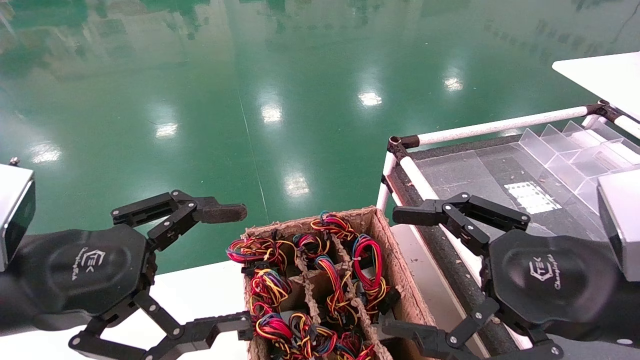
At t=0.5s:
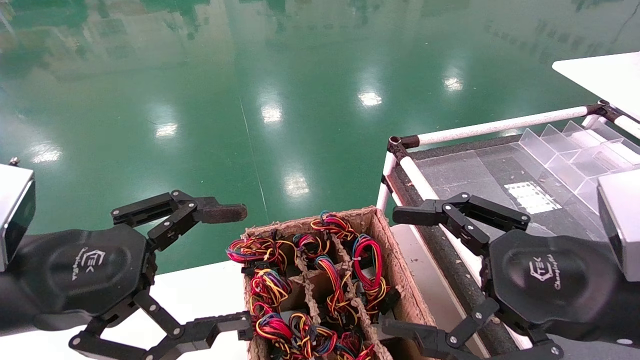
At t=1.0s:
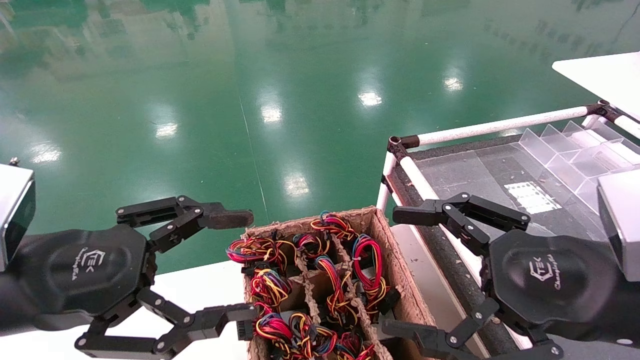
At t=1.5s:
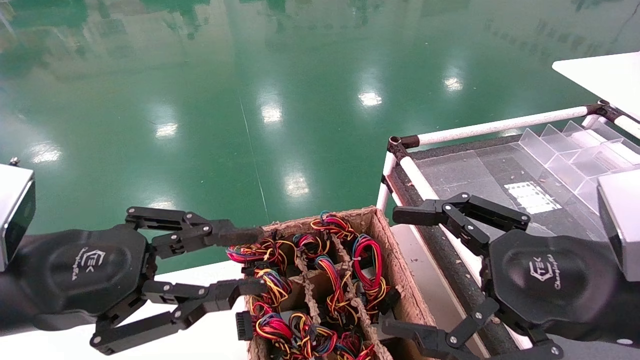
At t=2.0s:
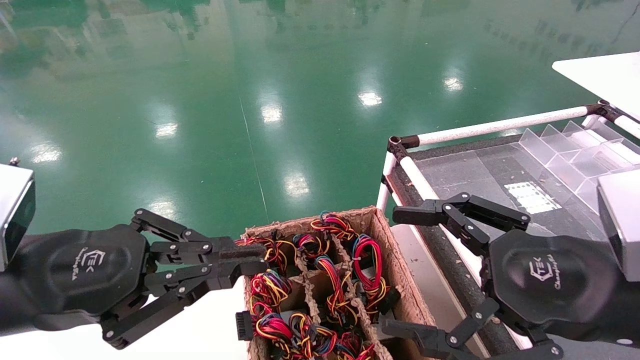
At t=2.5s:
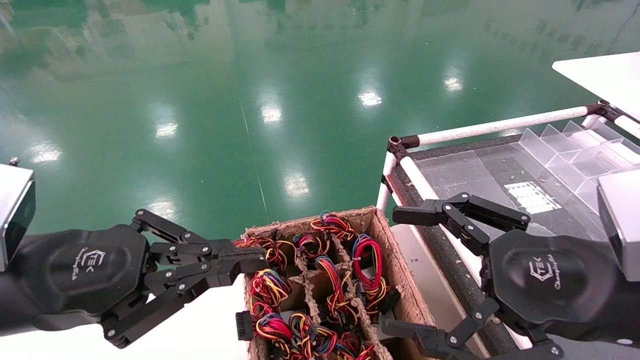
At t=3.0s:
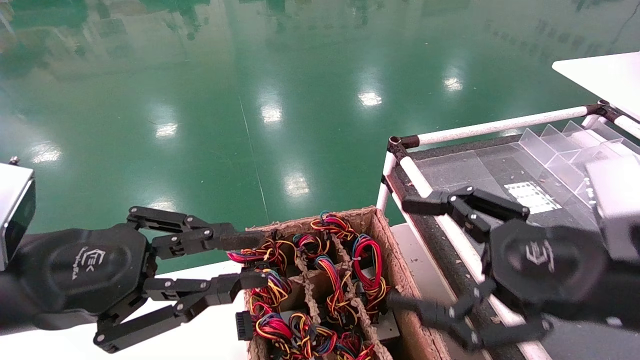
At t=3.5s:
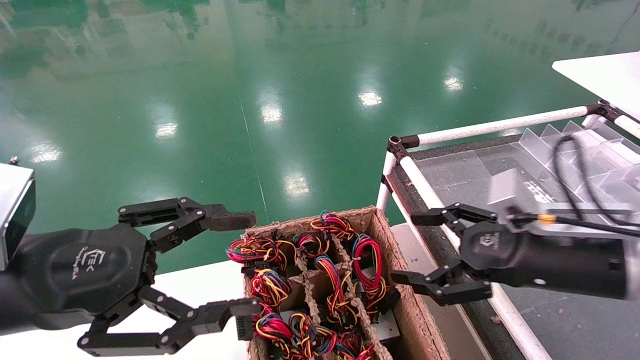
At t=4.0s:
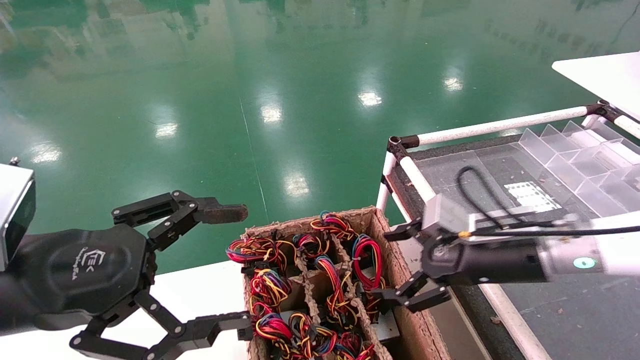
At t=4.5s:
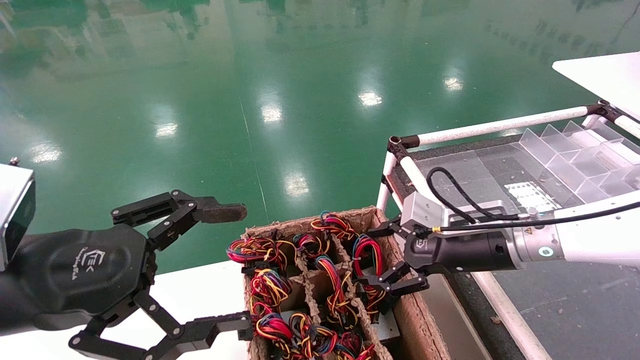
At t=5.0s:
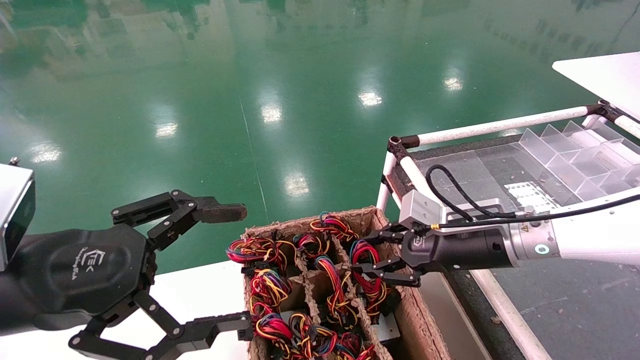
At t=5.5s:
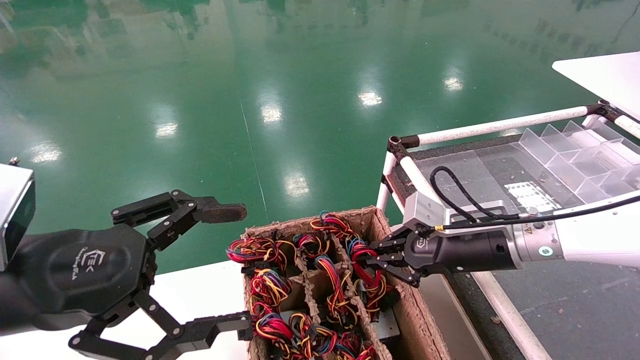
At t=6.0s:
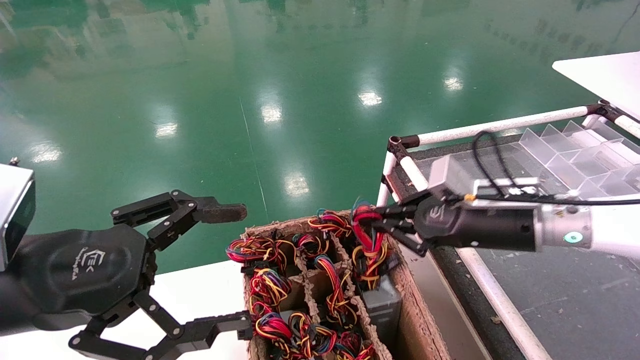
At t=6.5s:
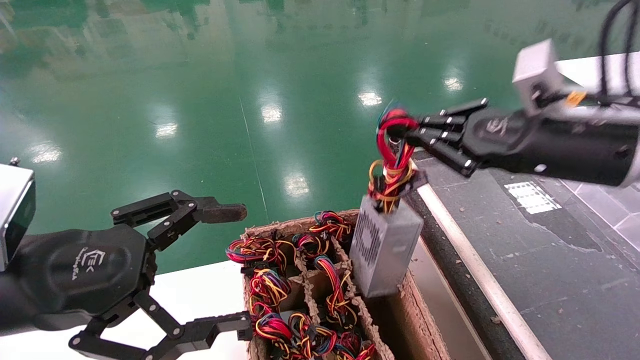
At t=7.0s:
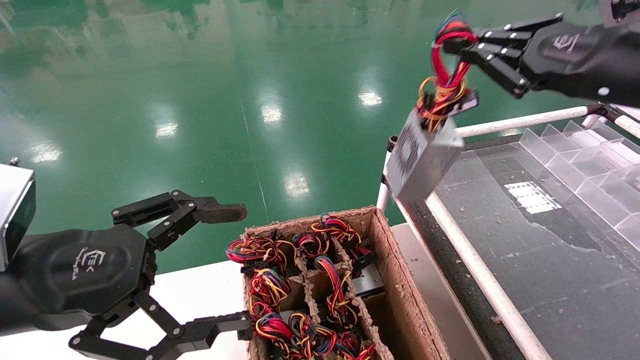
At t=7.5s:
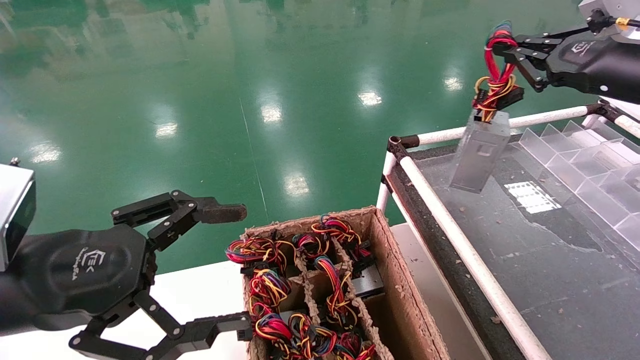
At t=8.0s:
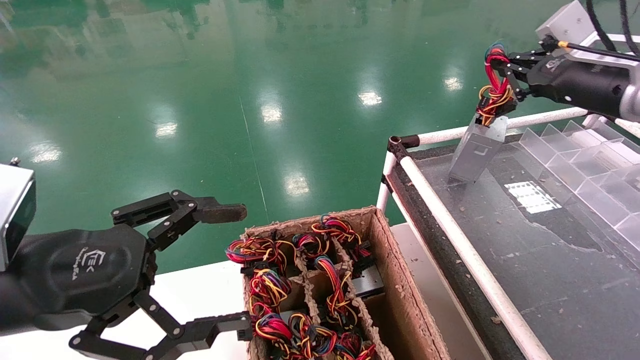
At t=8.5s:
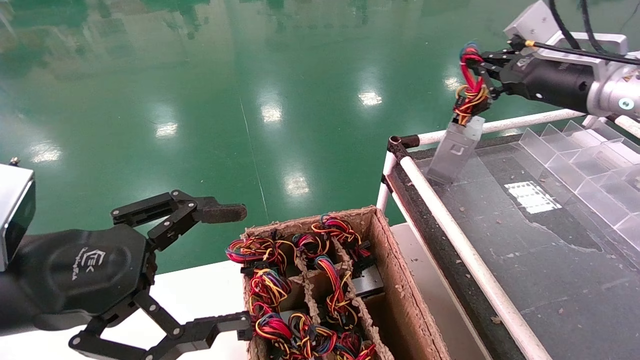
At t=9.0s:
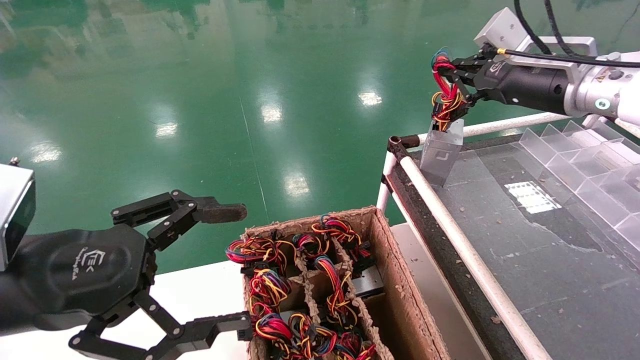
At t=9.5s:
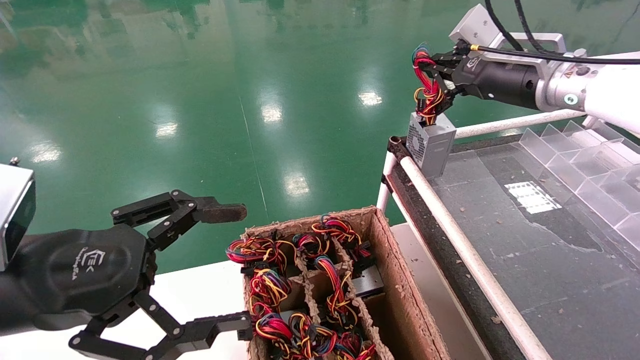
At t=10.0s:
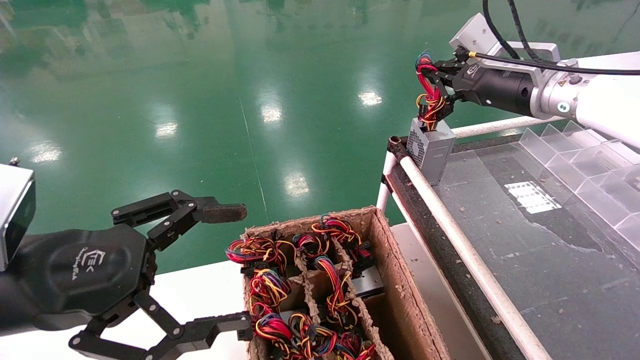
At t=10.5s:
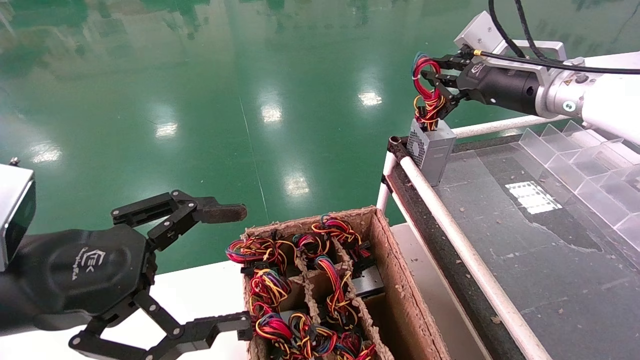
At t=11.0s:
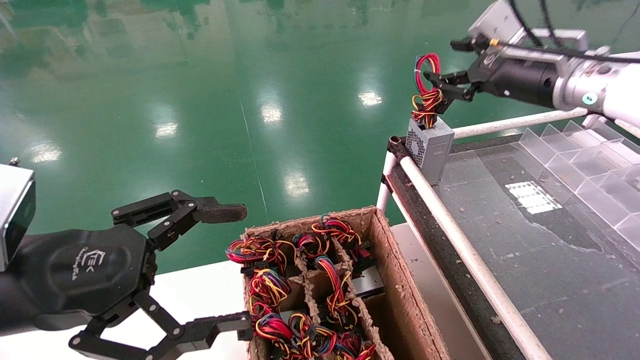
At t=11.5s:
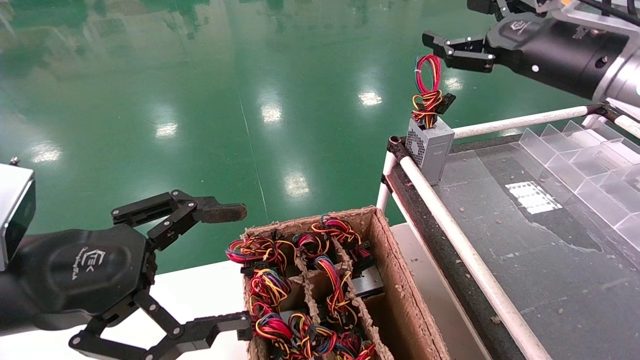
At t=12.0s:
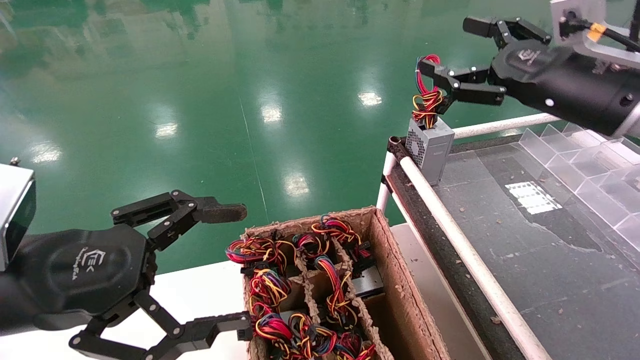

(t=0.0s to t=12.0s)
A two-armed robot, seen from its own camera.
Step, t=2.5s - t=5.5s: Grab and lift the power supply from the large box.
Step, t=6.0s - t=10.5s: Place the power supply on the operating table.
t=0.0s - t=2.0s: The left gripper closes.
t=2.0s - t=4.0s: The left gripper opens. Meanwhile the right gripper goes roughly 15 cm forward.
t=4.0s - t=6.0s: The right gripper closes up.
t=6.0s - t=8.0s: The right gripper goes approximately 20 cm upward and to the right.
t=8.0s - t=10.0s: The right gripper travels to the left by approximately 10 cm.
t=10.0s - t=12.0s: The right gripper heads backward, covering roughly 10 cm, and opens up.

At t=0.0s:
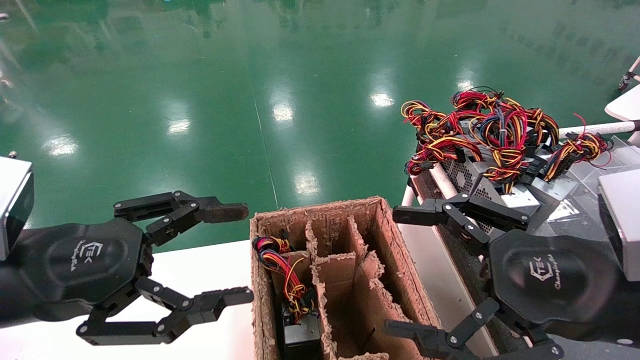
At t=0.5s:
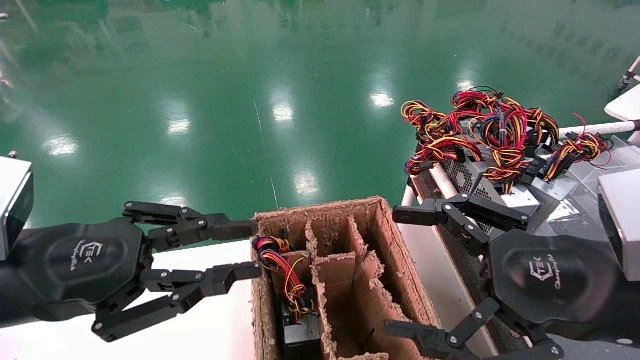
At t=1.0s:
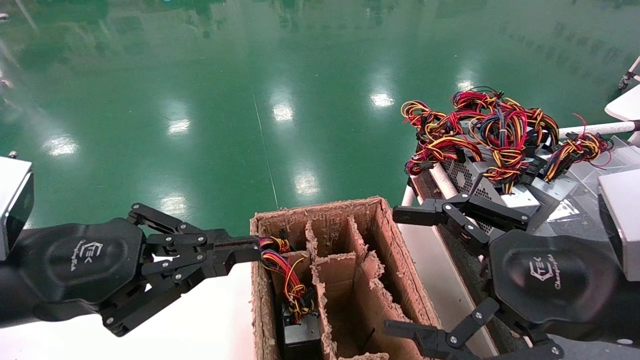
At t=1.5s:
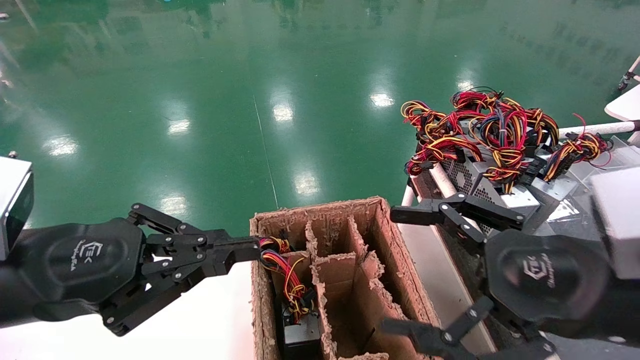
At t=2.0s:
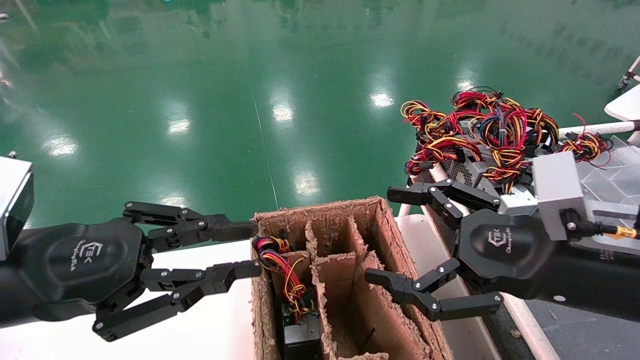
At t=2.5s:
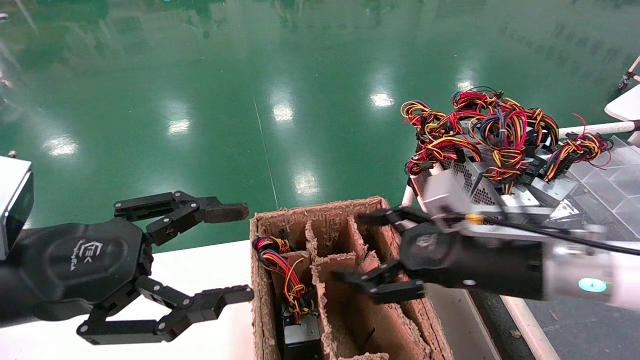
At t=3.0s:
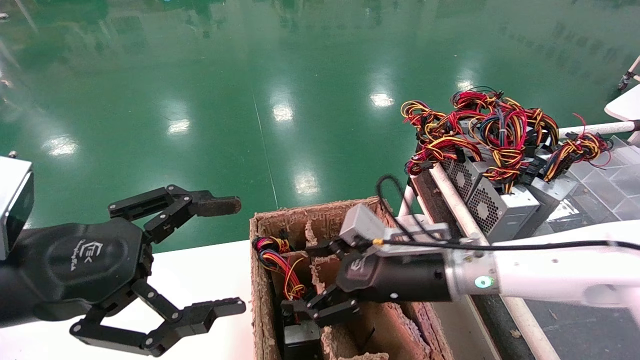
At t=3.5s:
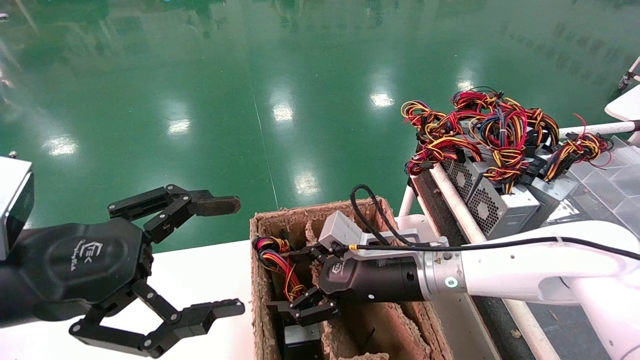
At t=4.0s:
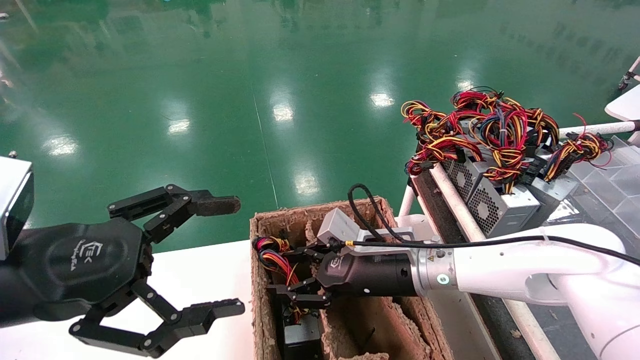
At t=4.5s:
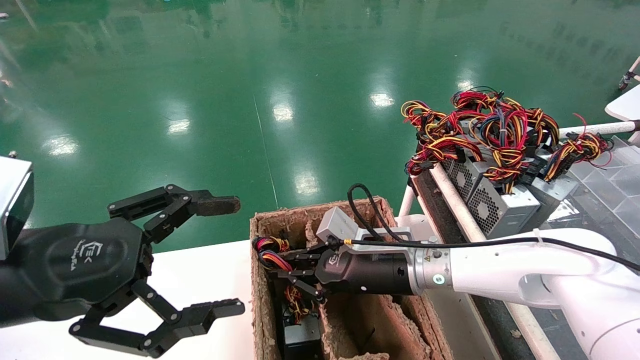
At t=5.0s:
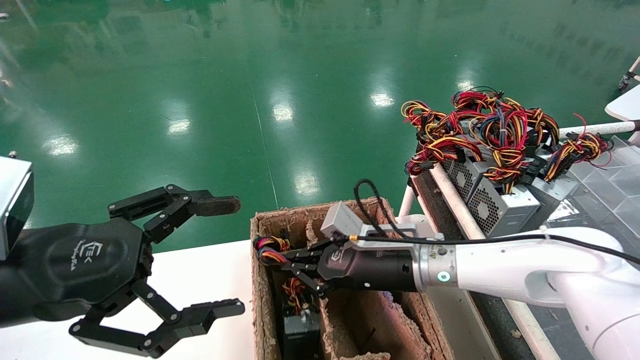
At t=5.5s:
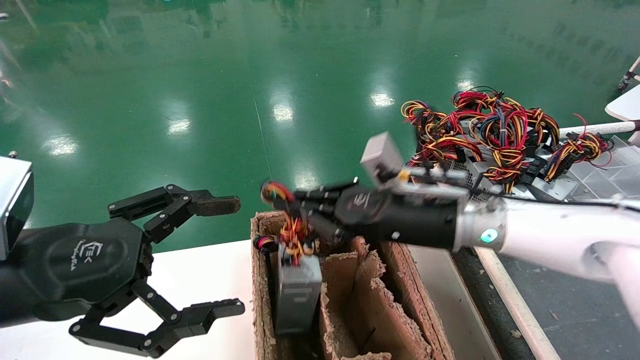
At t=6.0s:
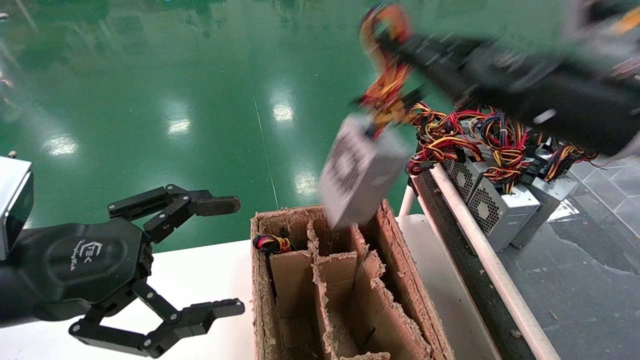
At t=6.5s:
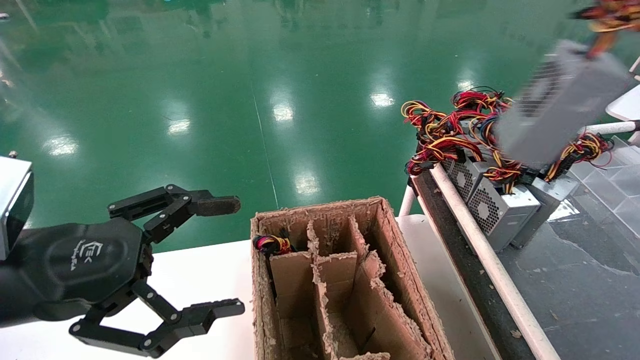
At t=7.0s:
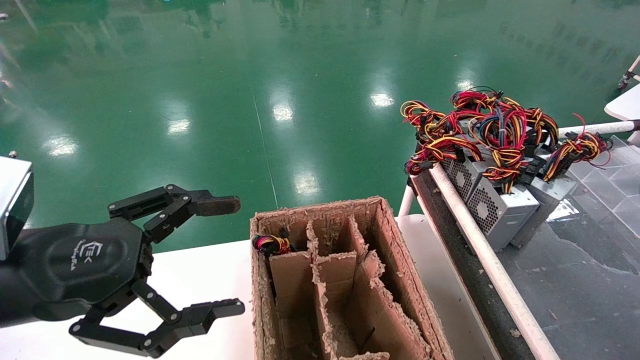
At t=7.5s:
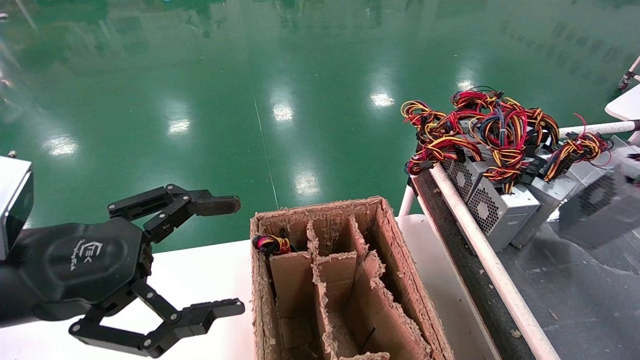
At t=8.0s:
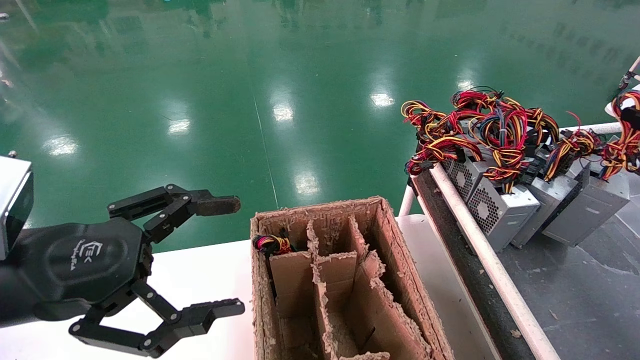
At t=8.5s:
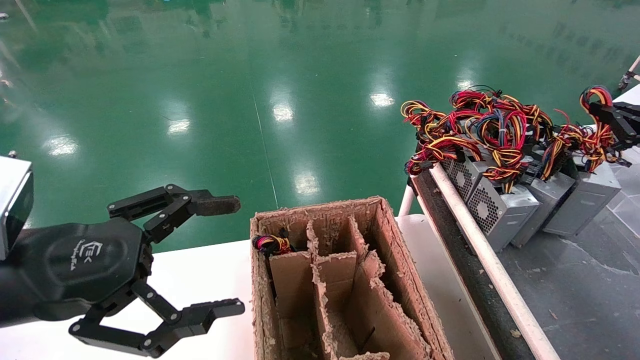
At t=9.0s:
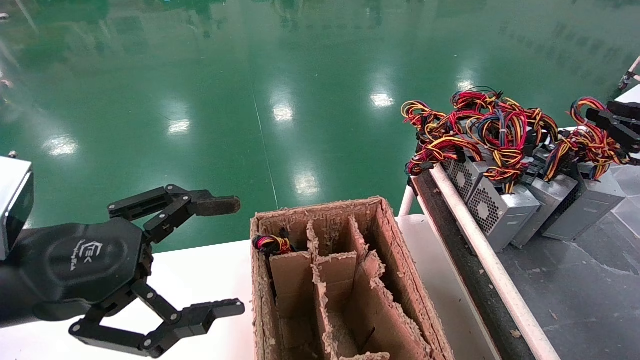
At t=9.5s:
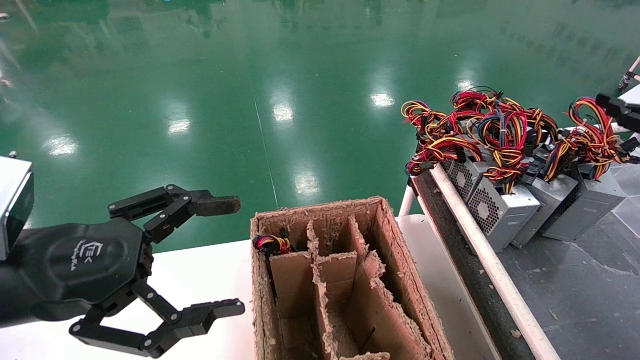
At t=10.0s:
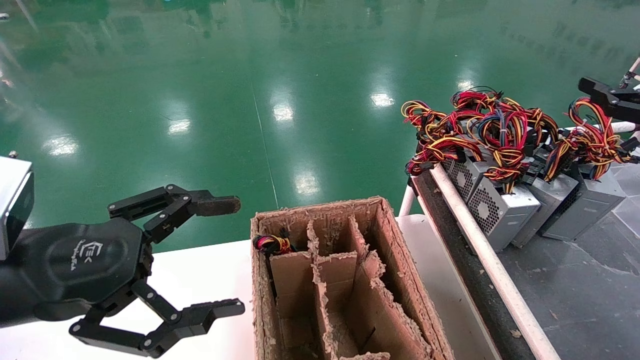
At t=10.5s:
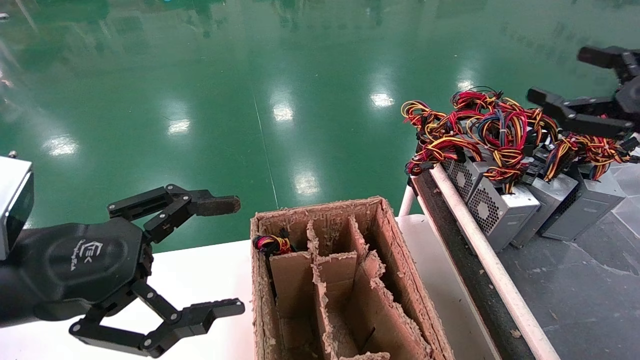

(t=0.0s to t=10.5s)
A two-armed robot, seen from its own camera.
Step, t=1.5s - t=4.5s: Grab and lift the power supply from the large box.
Step, t=5.0s - t=8.5s: Place the power supply on the operating table.
t=0.0s - t=2.0s: The left gripper closes up.
t=2.0s - t=4.0s: The left gripper opens up, while the right gripper goes approximately 25 cm forward, to the left and downward, and closes its fingers.
t=4.0s - t=6.5s: The right gripper moves to the right, upward and backward, approximately 40 cm, and closes its fingers.
t=6.5s - t=8.5s: The right gripper moves downward, forward and to the right, some 15 cm.
t=8.5s - t=10.5s: The right gripper is displaced to the left by approximately 10 cm, and opens up.
